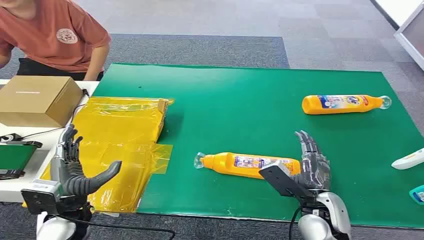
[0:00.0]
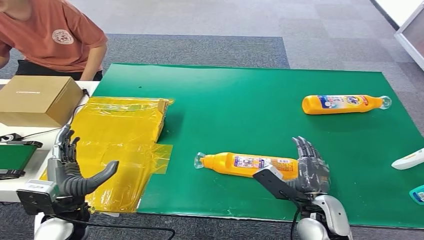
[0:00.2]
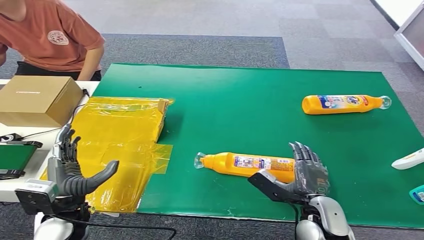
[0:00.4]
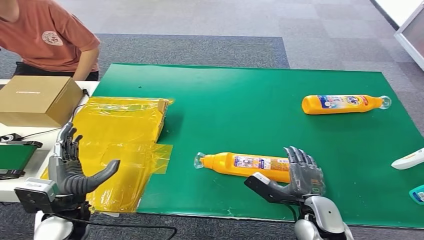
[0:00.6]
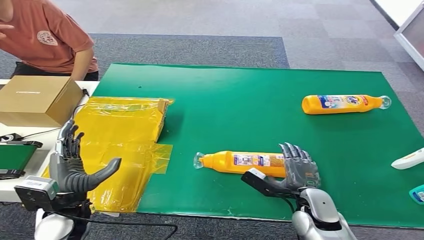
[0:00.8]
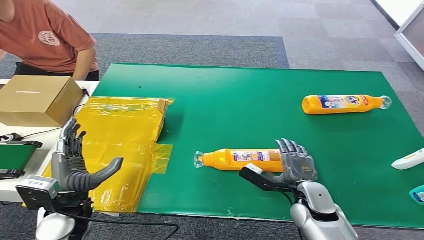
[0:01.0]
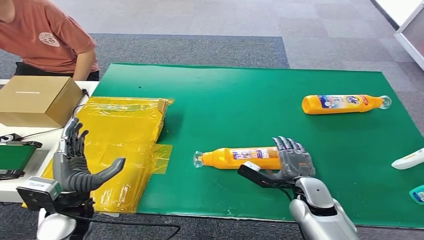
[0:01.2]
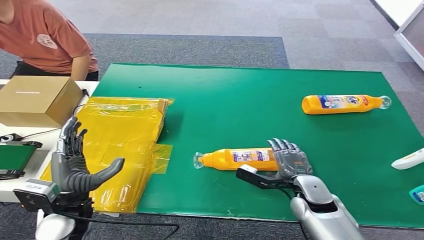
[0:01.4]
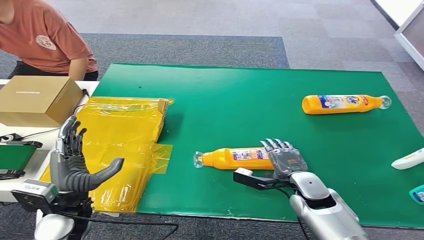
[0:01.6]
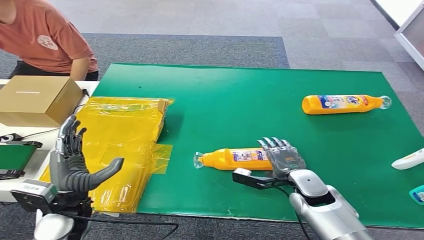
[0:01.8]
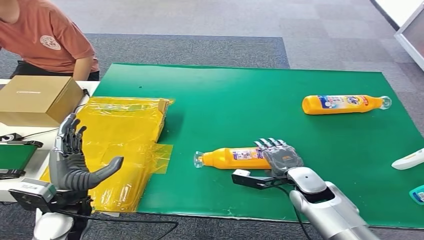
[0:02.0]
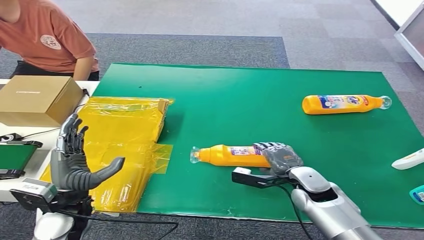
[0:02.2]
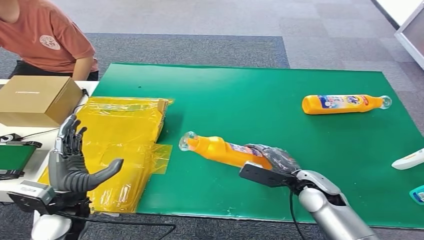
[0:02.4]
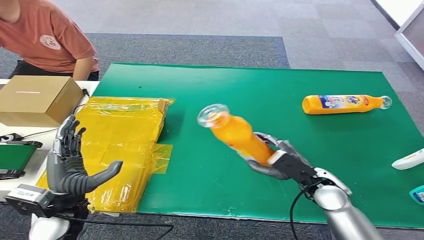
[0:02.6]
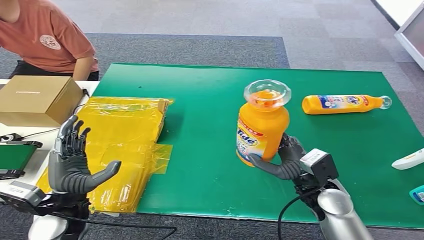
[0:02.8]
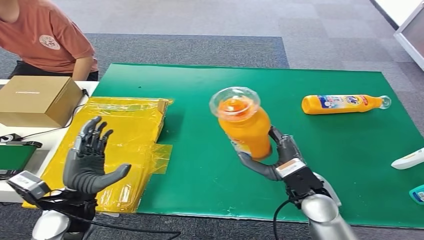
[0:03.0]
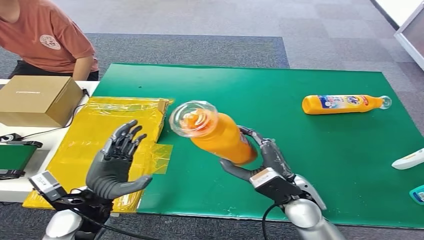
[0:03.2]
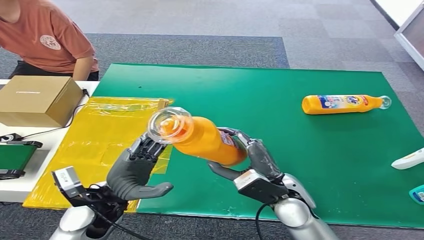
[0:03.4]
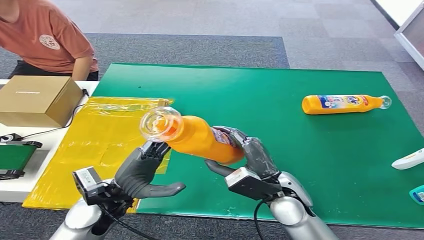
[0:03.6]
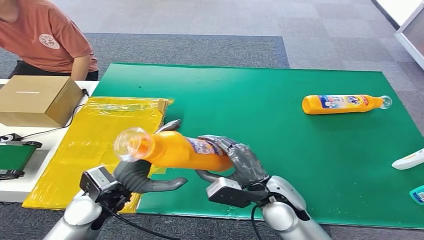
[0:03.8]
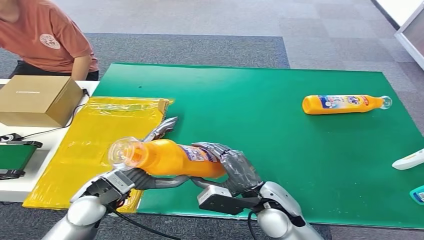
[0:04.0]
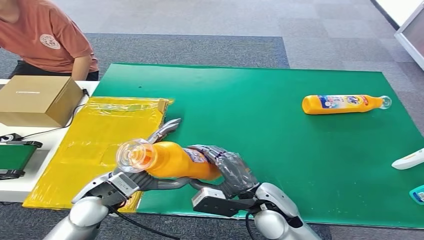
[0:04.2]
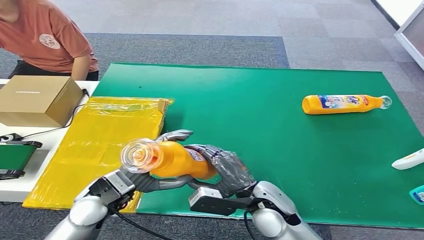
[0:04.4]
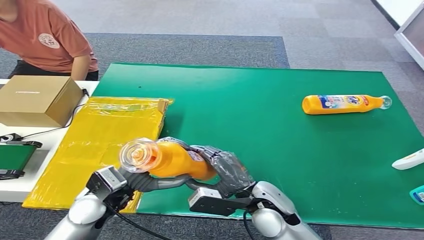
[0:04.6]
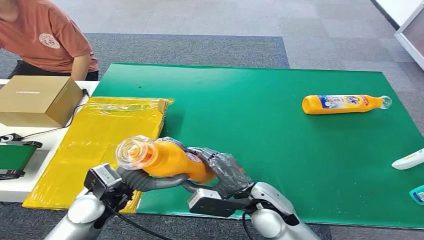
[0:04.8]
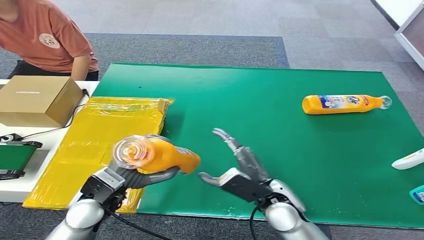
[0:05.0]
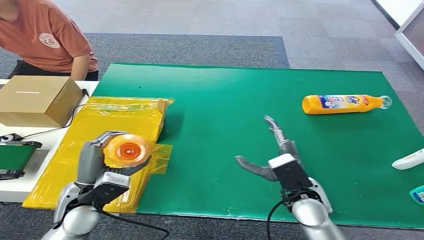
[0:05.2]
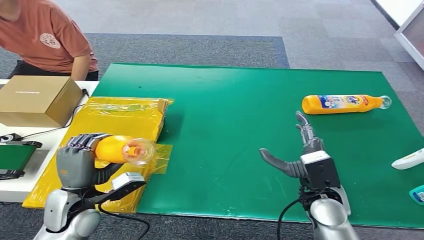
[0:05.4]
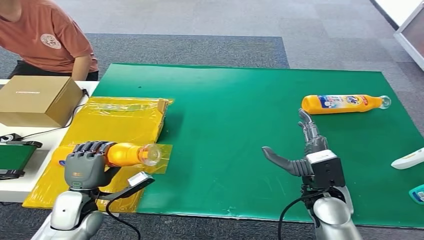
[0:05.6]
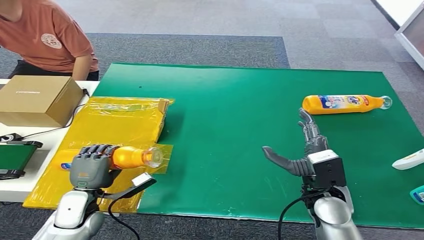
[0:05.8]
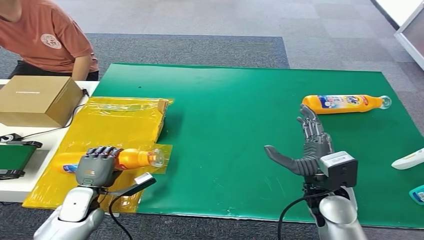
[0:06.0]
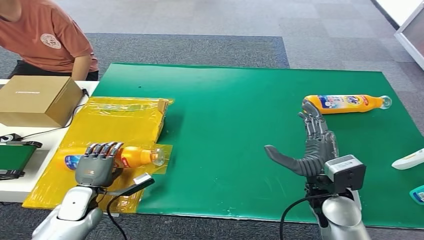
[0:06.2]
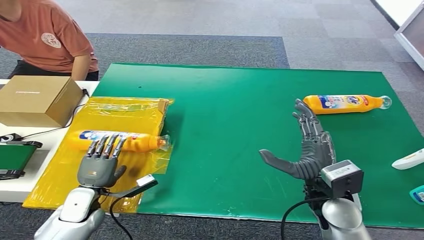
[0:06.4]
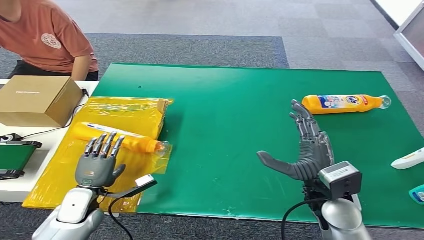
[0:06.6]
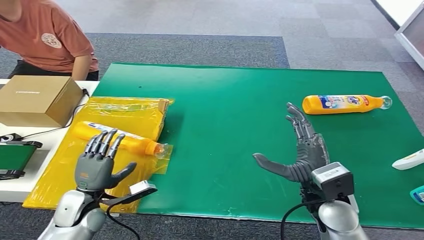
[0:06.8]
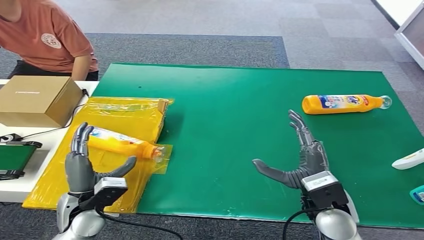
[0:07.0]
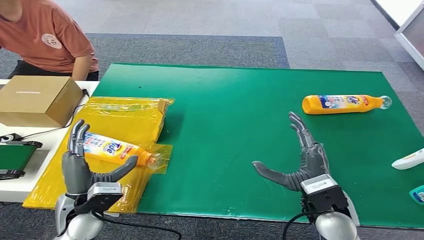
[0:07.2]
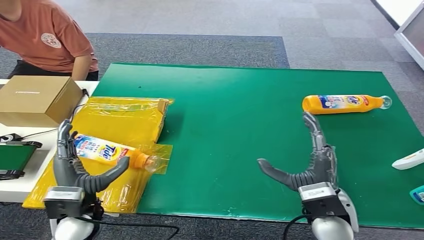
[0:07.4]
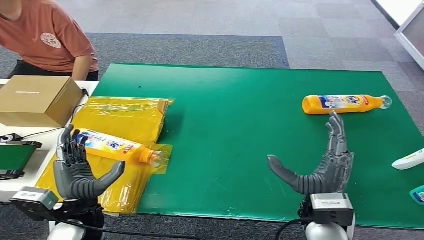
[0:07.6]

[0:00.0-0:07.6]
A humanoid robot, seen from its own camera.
Step, 0:00.0 to 0:03.0: Pick up the bottle from the table.
Step, 0:03.2 to 0:07.6: Turn the bottle to the front side.
0:01.6 to 0:03.0: The right hand heads upward, covering about 10 cm.
0:04.6 to 0:06.0: The left hand goes approximately 15 cm downward and to the left. The right hand travels to the right by approximately 10 cm.
0:06.0 to 0:07.6: The right hand shifts about 5 cm backward. The left hand moves upward, to the right and backward, roughly 15 cm.

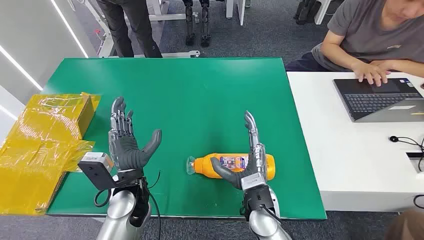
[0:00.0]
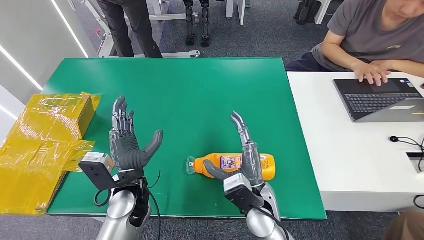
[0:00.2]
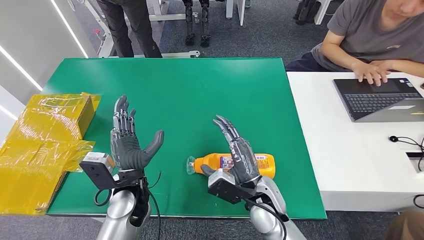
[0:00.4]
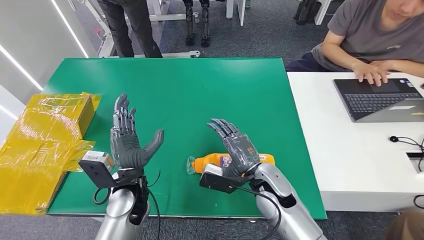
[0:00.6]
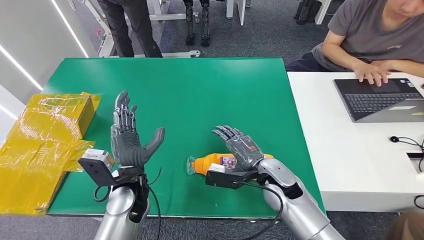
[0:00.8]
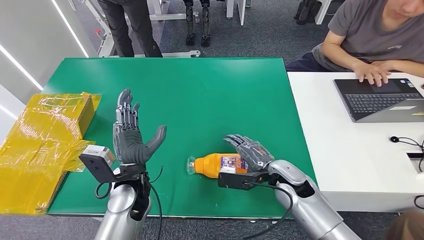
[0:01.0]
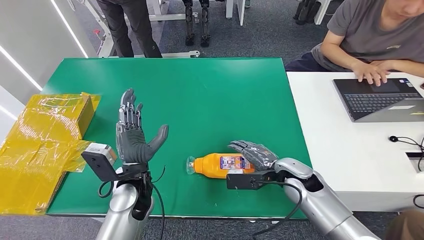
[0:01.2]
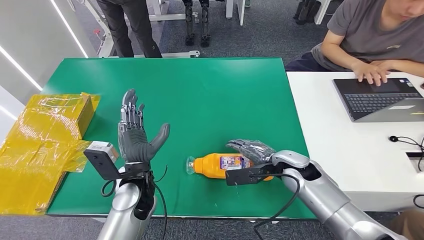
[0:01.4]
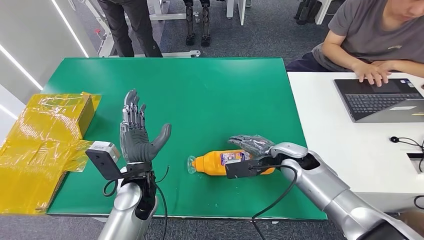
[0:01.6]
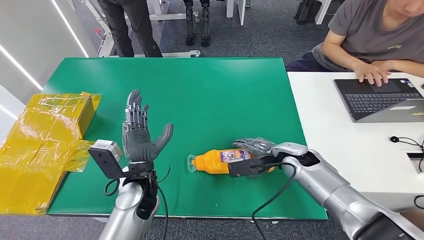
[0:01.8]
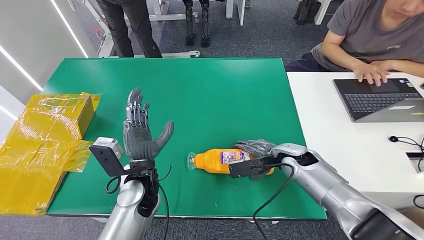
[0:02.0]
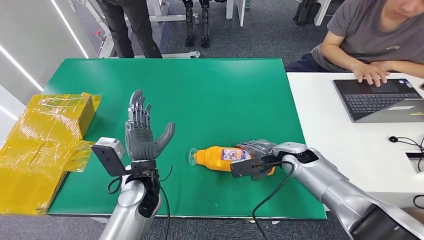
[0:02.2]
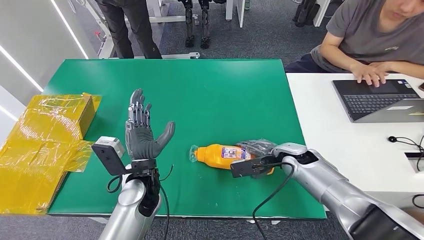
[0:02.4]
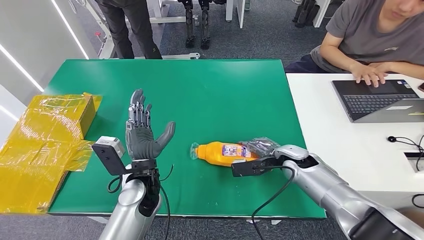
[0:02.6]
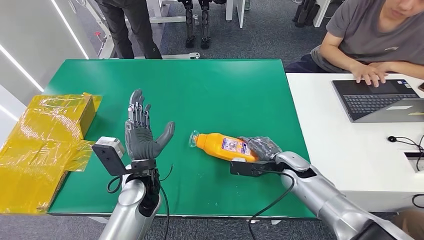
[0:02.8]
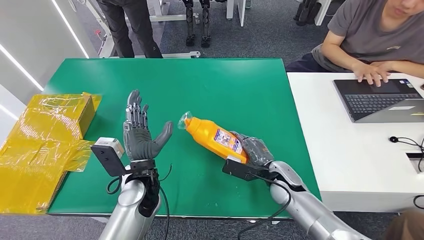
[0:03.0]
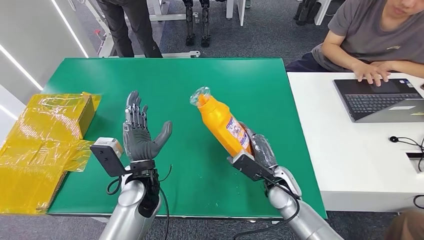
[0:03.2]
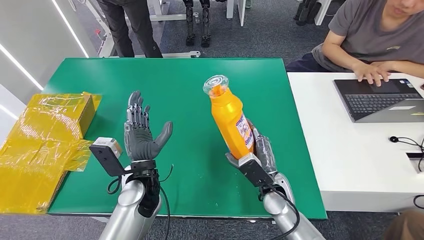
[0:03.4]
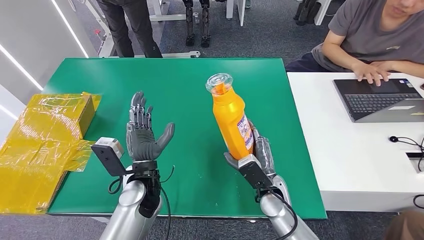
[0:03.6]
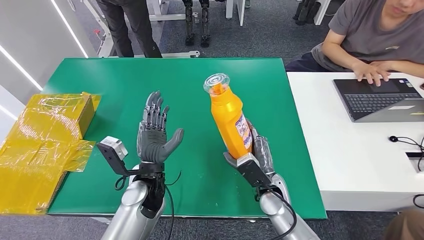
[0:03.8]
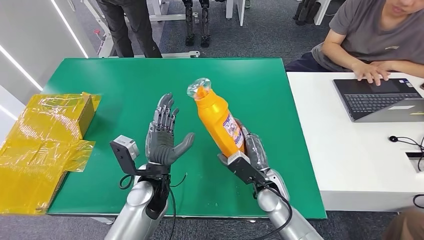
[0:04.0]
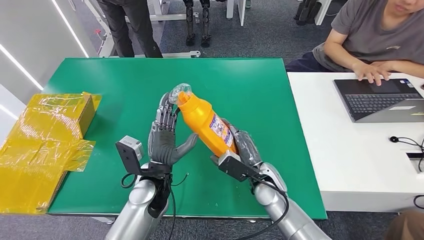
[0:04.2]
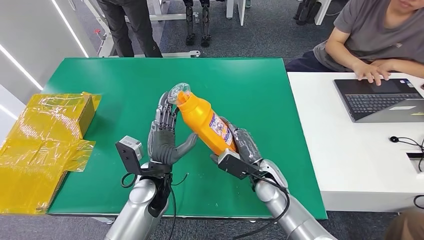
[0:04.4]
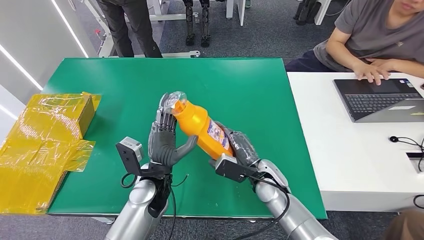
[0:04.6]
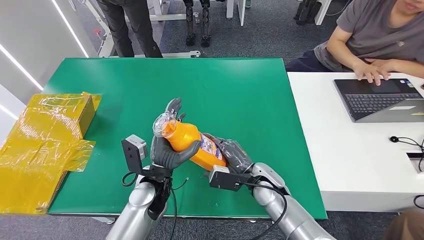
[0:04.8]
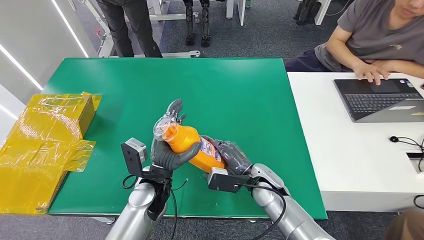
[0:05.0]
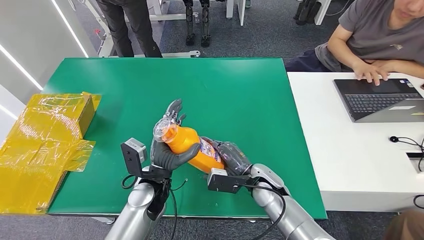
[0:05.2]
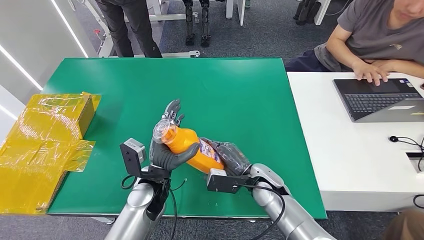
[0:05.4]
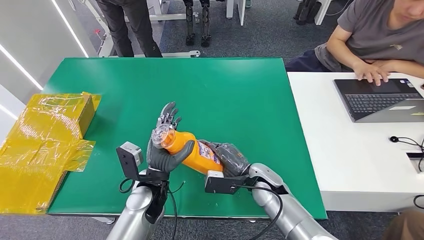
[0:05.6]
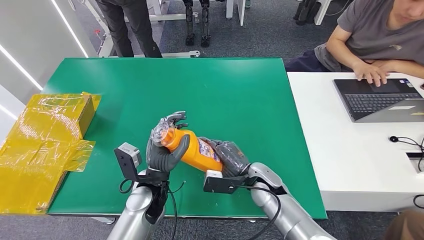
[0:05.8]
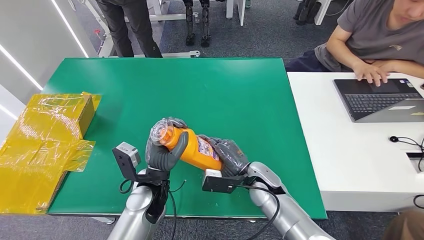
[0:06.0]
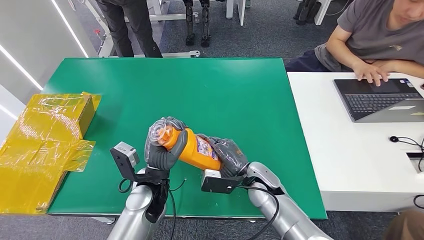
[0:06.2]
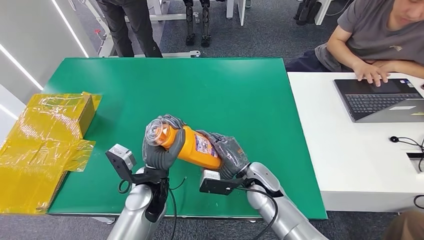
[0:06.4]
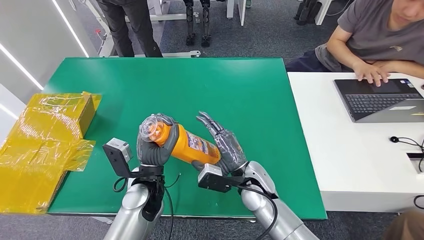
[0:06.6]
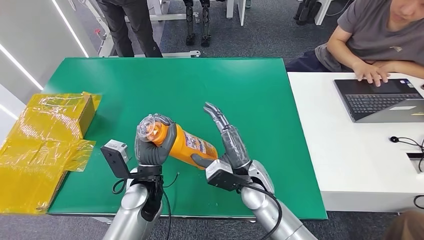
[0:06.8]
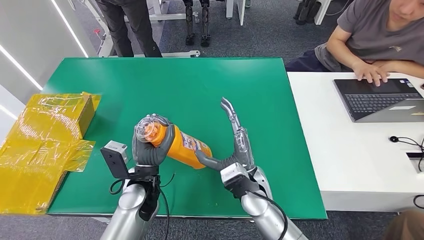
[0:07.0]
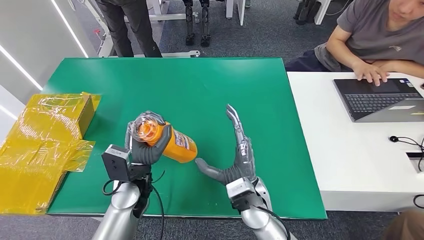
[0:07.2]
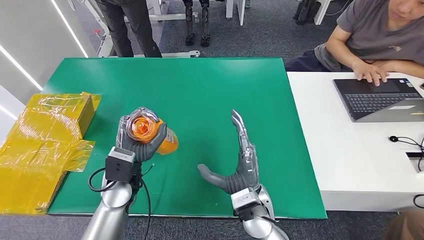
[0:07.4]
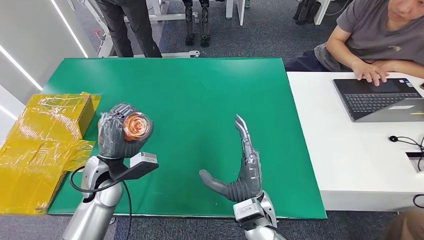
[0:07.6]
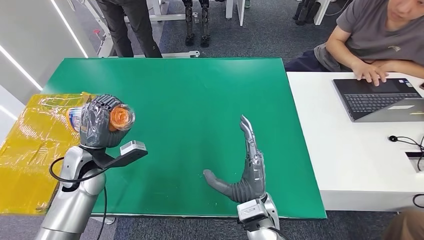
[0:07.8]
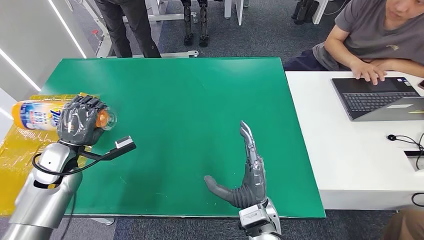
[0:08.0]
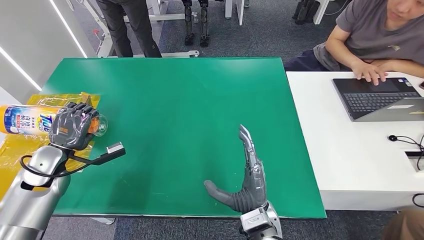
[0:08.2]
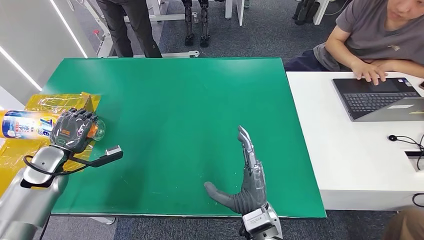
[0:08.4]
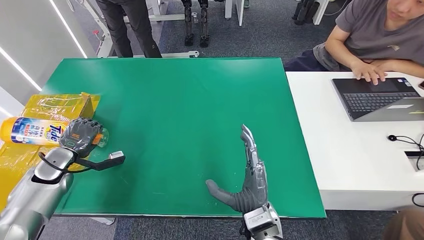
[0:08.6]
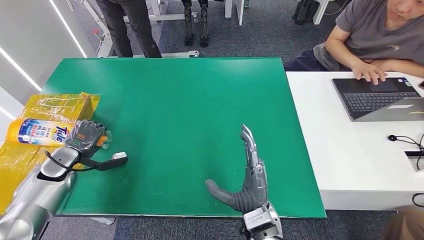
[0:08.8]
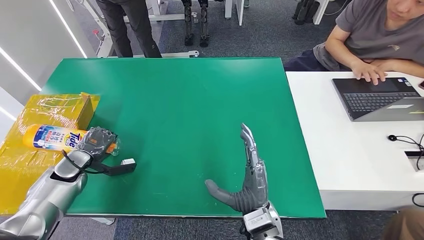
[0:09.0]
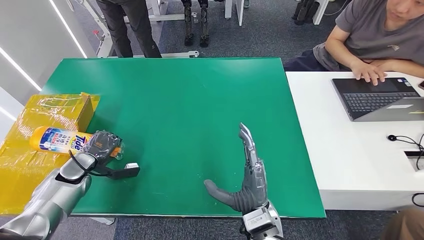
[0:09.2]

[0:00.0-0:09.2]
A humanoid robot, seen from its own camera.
Step, 0:00.0 to 0:03.6: Pick up the bottle from the table.
0:01.6 to 0:03.0: The right hand travels downward by roughly 5 cm.
0:03.0 to 0:04.6: The right hand is displaced to the left by some 5 cm.
0:04.6 to 0:06.2: The hands stay close to where they were, moving slightly.
0:06.2 to 0:07.6: The right hand is displaced backward by about 10 cm, while the left hand moves to the left, some 10 cm.
0:07.6 to 0:09.2: The left hand shifts about 20 cm to the left and downward.
